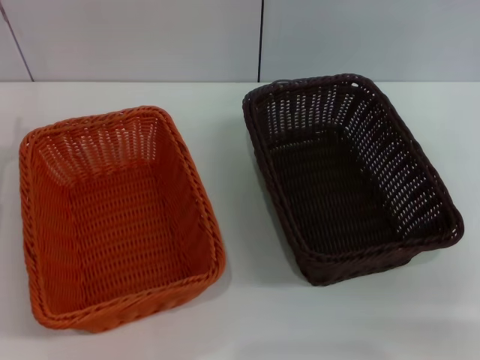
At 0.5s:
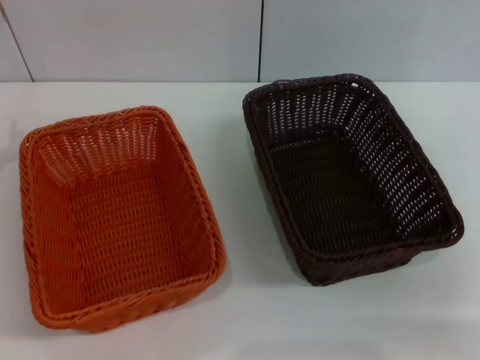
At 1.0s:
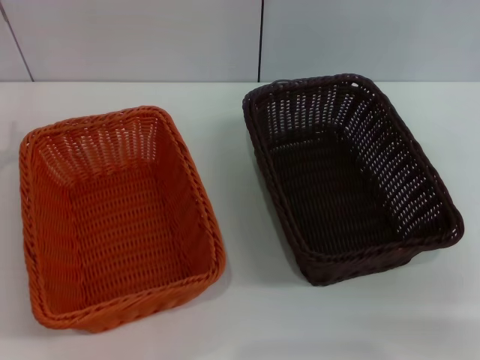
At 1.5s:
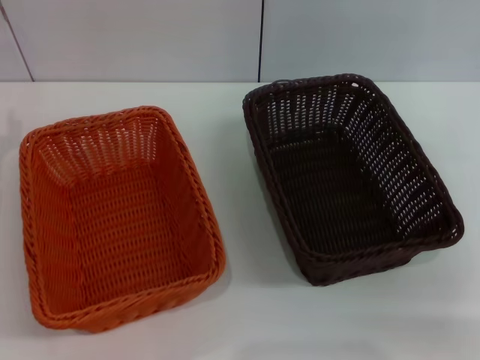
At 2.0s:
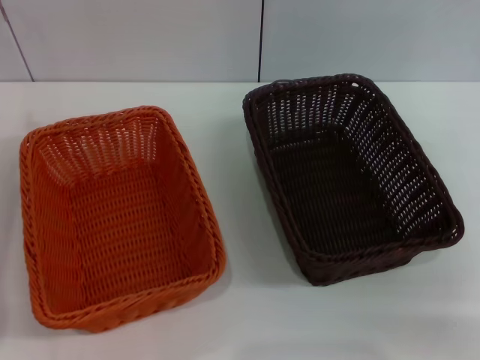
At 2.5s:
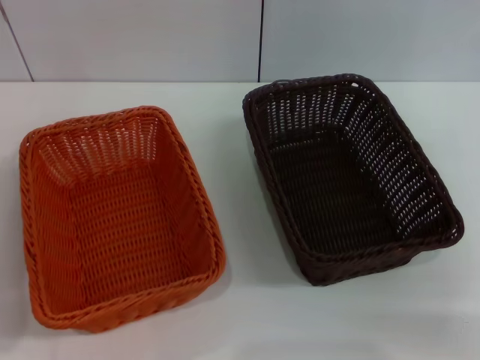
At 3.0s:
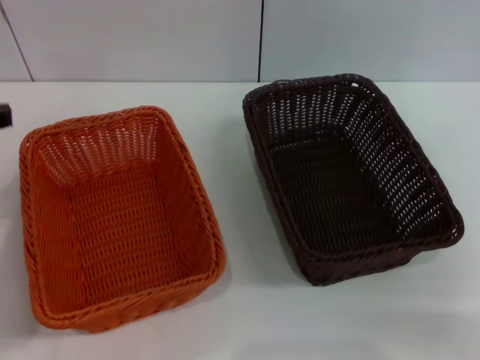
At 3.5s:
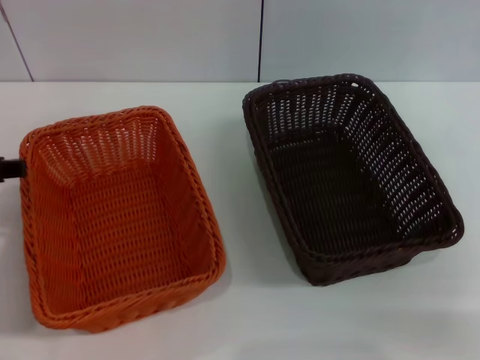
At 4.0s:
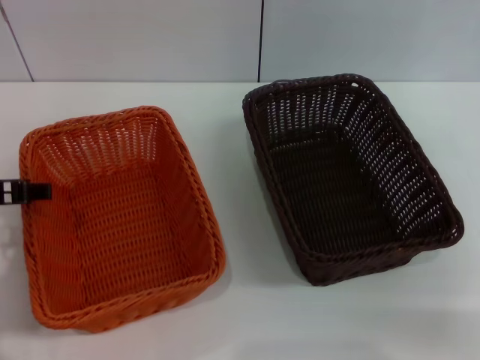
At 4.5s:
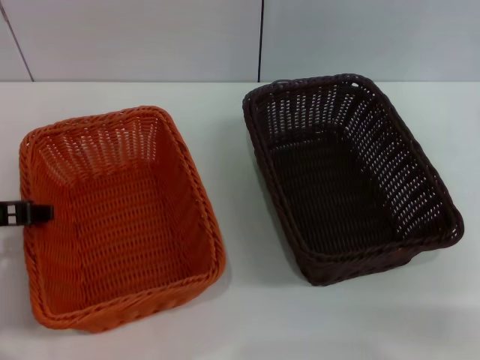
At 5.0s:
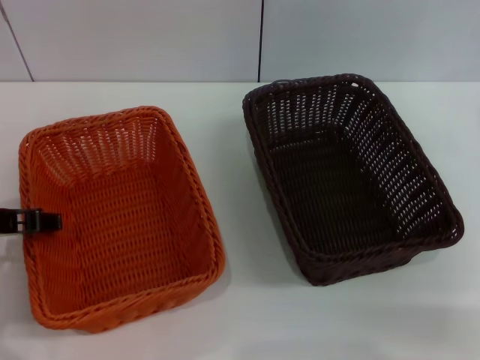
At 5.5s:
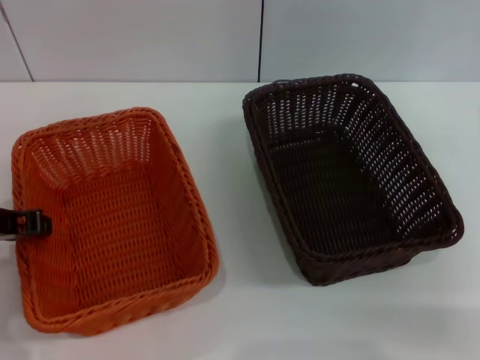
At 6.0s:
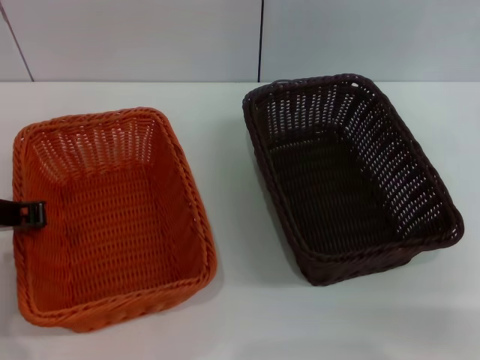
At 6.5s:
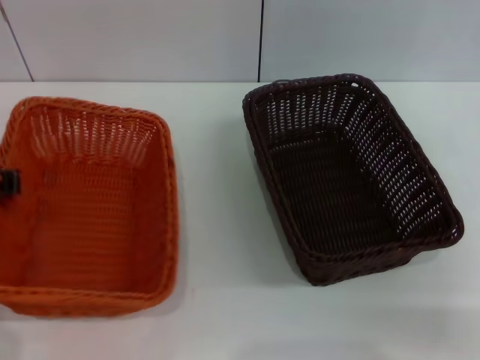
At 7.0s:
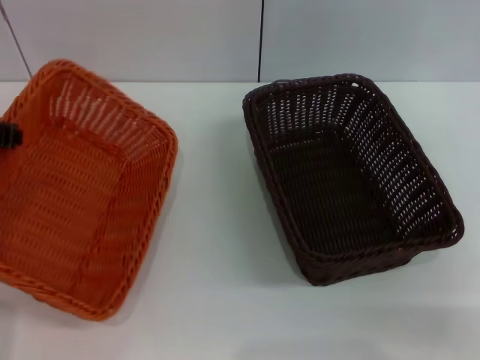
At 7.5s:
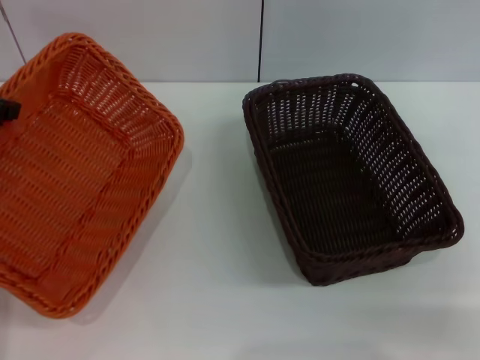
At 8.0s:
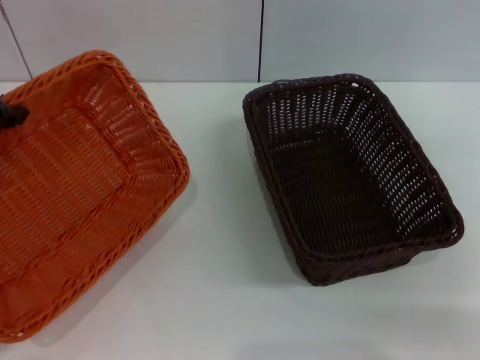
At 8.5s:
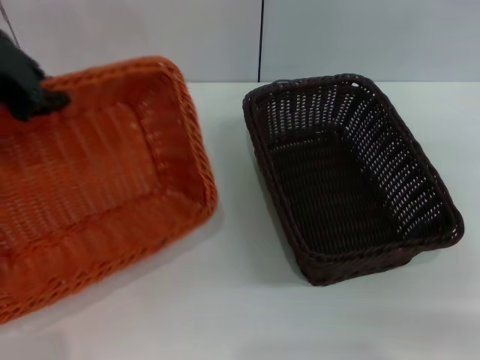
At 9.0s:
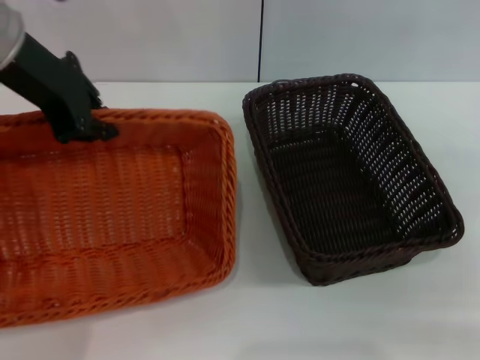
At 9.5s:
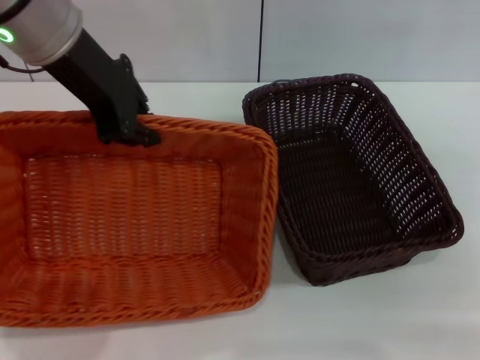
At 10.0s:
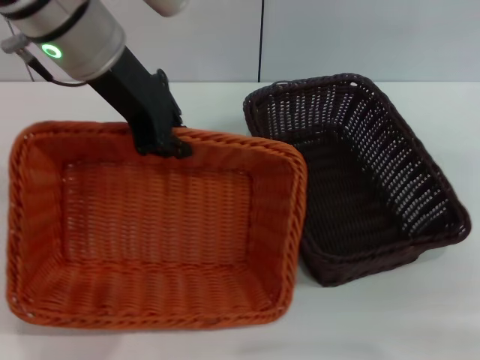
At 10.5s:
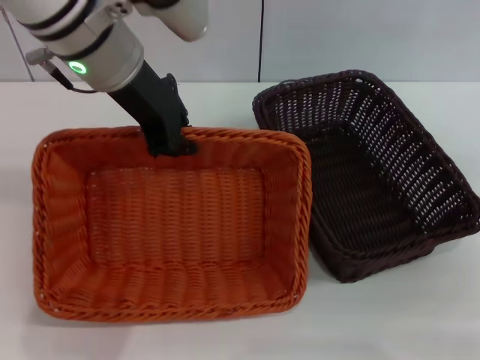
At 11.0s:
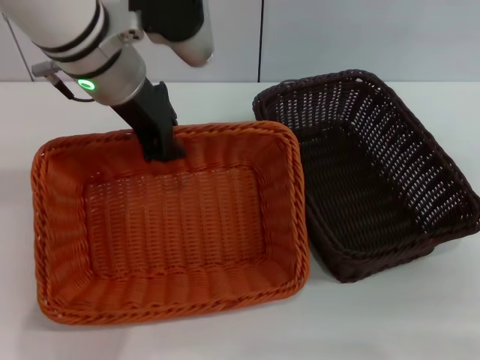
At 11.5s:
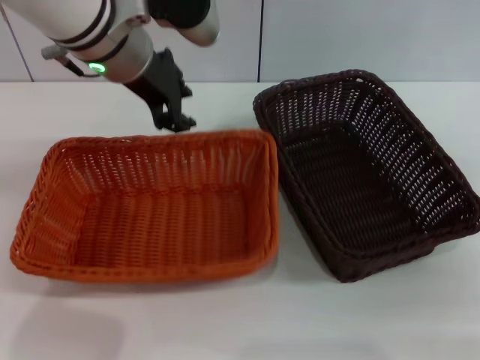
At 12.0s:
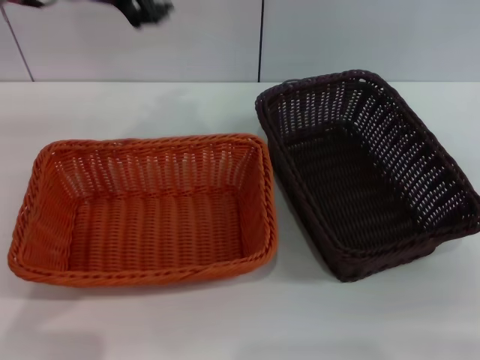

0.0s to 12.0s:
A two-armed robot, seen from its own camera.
Step, 0.0s to 7.0s: Pick up the light basket with the left gripper.
Step, 7.5s to 11.5s: Place the light basket in the center of view with the left gripper.
2.0s to 4.0s: The left gripper shifts some 10 cm to the right and downward, and opens.
4.0s to 6.0s: The left gripper closes.
6.0s to 8.0s: The left gripper shifts some 10 cm upward.
8.0s to 10.0s: The left gripper travels to the right and forward by about 15 cm.
10.0s to 12.0s: The left gripper opens.

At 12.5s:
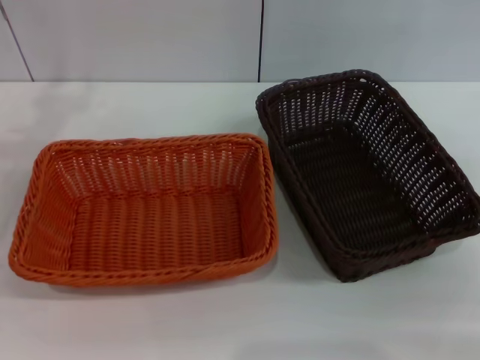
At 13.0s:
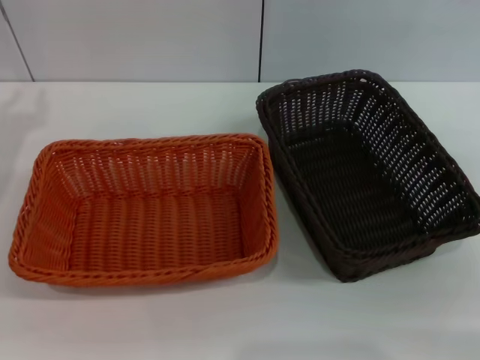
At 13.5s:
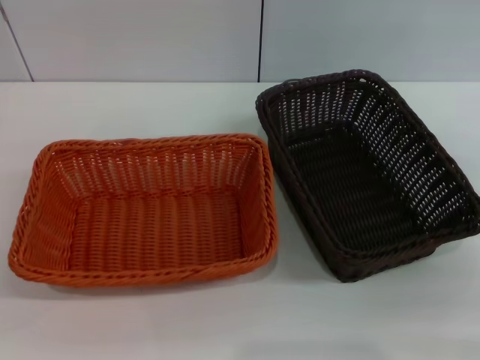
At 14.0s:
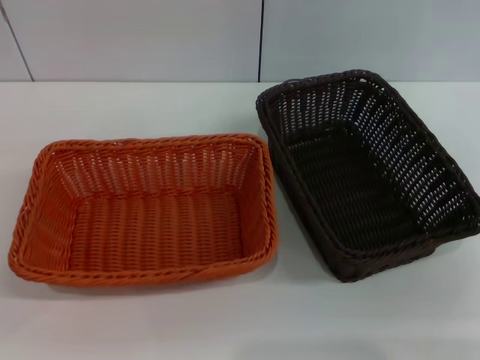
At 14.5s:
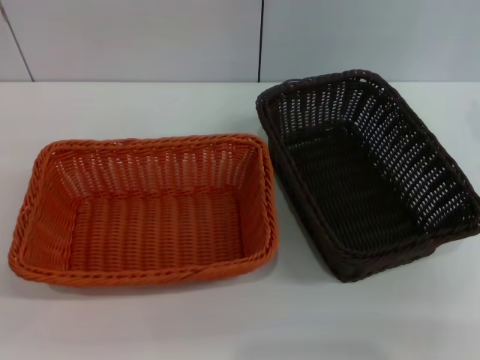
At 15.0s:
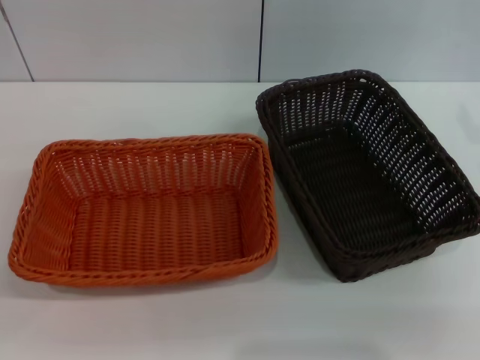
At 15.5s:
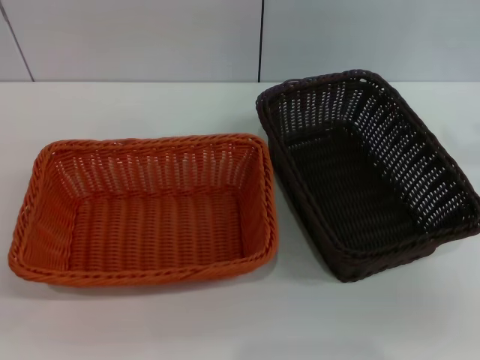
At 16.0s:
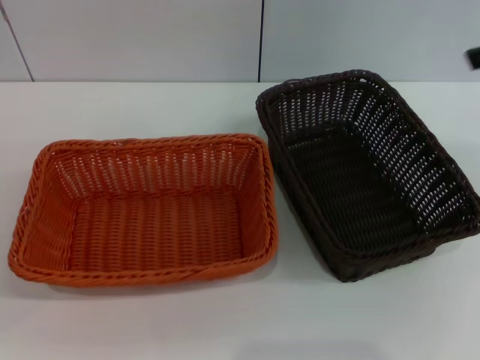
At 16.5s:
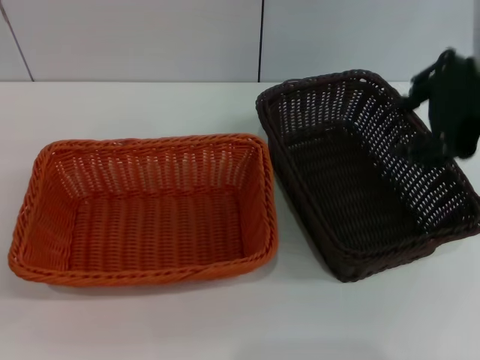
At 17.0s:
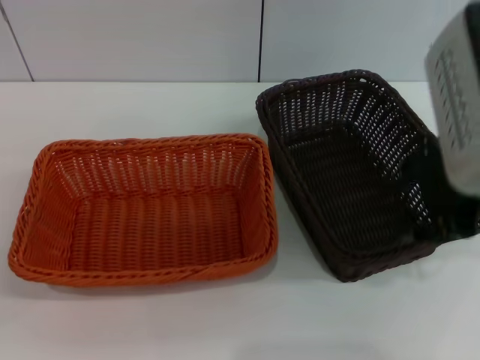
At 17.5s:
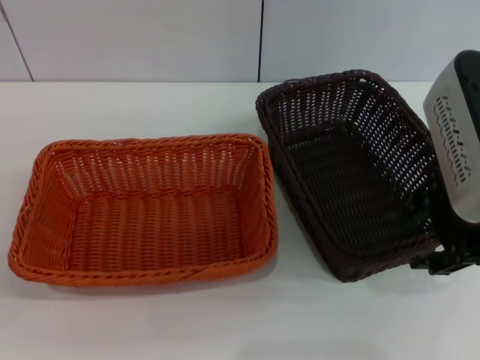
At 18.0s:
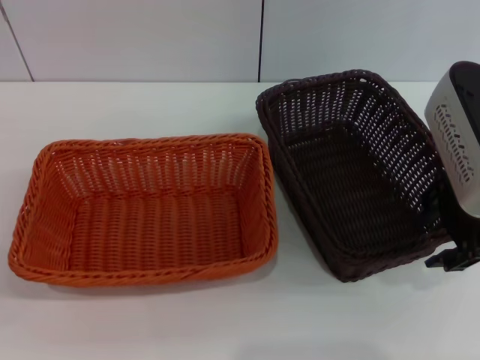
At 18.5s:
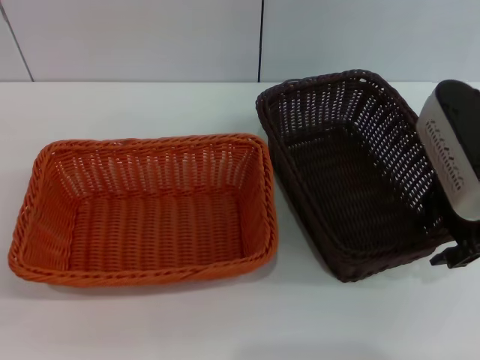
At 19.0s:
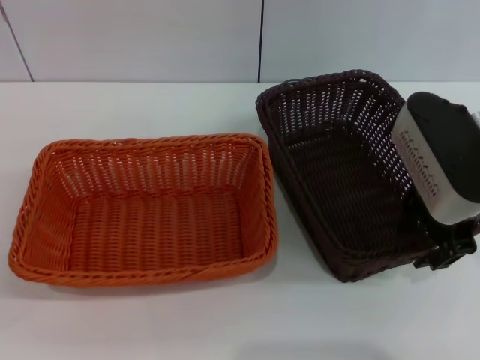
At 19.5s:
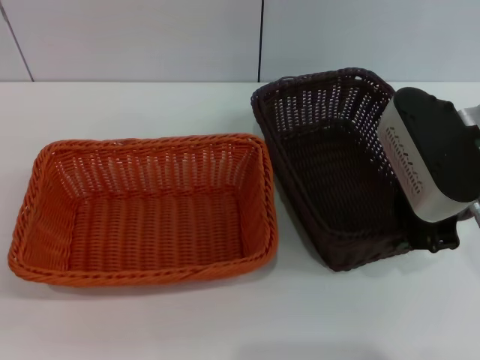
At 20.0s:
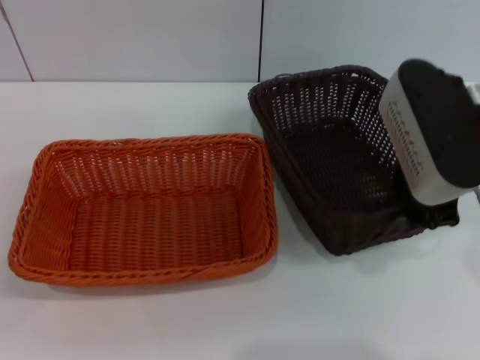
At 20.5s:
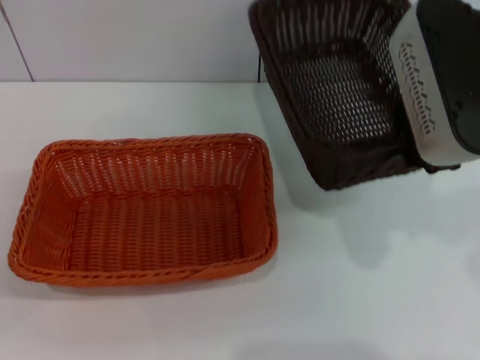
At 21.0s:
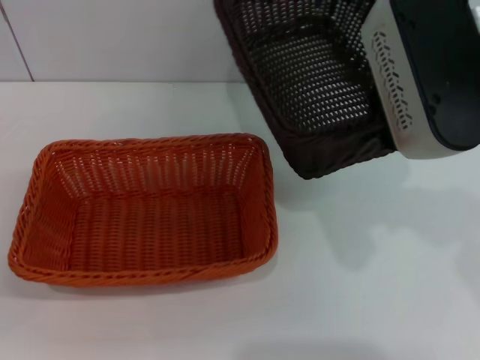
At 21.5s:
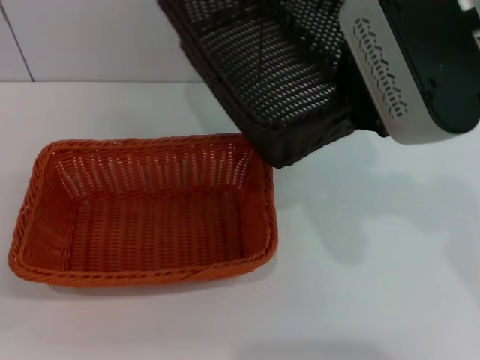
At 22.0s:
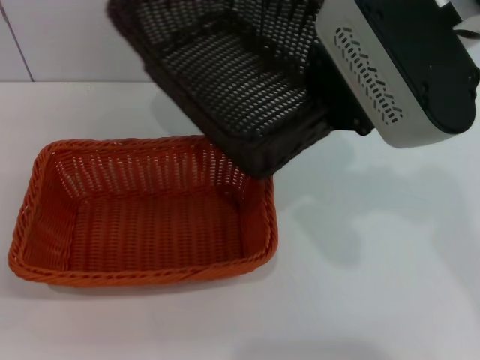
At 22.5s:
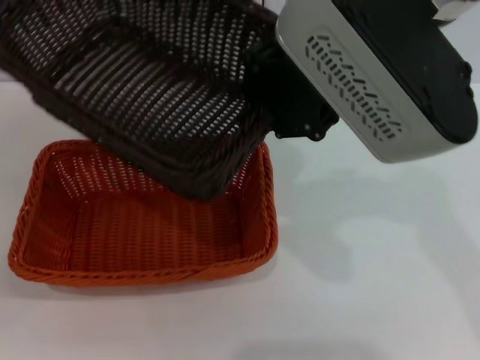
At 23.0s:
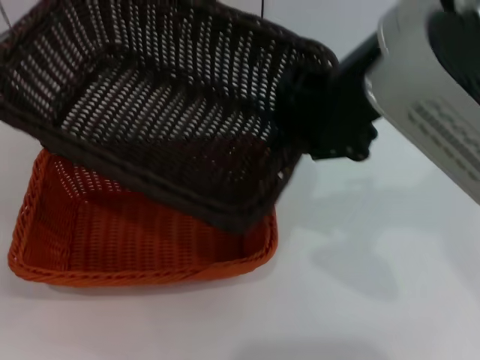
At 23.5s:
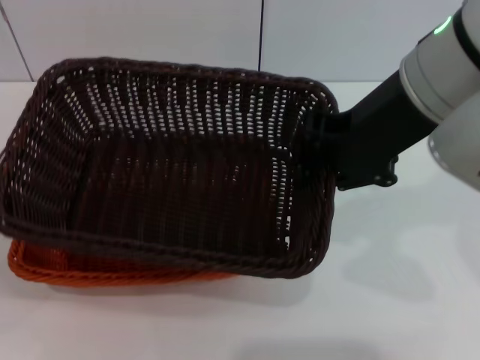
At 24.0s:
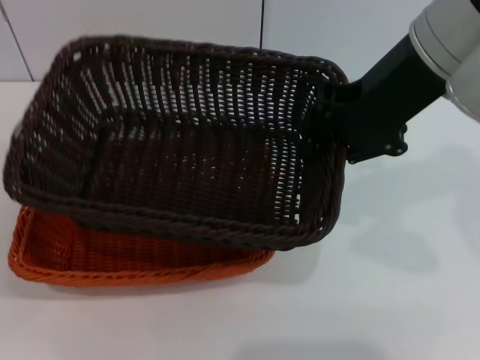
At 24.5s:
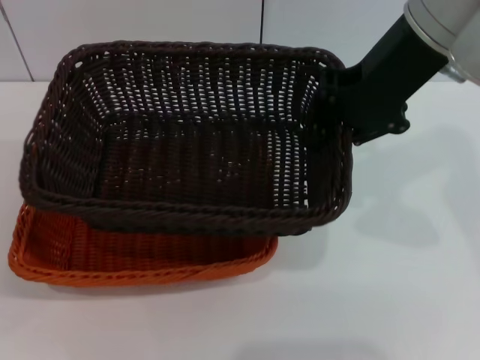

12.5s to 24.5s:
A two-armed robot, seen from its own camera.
Step, 12.5s to 19.5s: Pick up the dark basket with the right gripper.
14.5s to 16.5s: The right gripper is displaced to the left and upward by approximately 15 cm.
16.5s to 18.5s: The right gripper heads downward, covering roughly 10 cm.
18.5s to 20.5s: The right gripper travels upward by about 5 cm, and closes its fingers.
20.5s to 22.5s: The right gripper travels to the left by roughly 10 cm.
22.5s to 24.5s: The right gripper shifts roughly 10 cm to the right and forward.

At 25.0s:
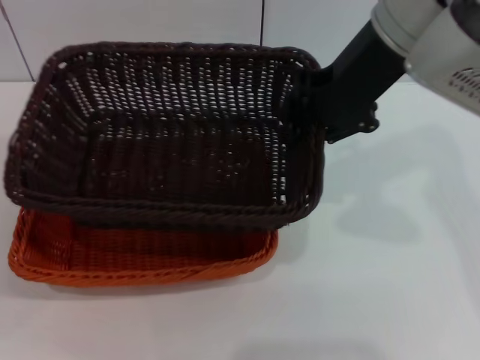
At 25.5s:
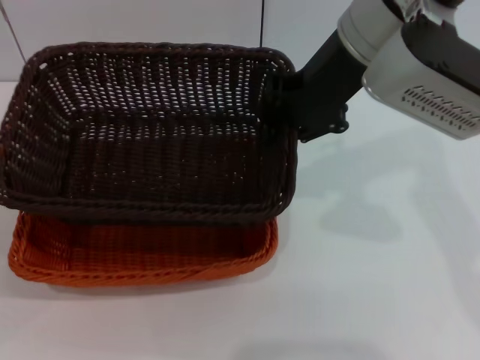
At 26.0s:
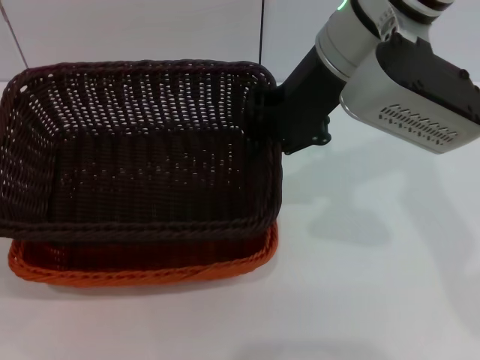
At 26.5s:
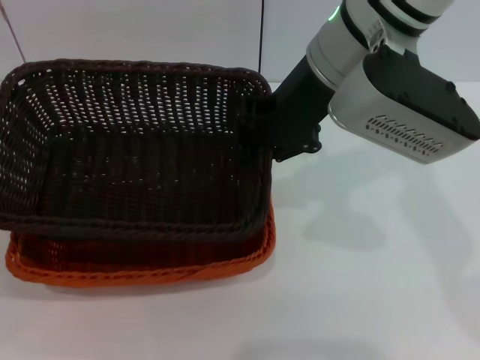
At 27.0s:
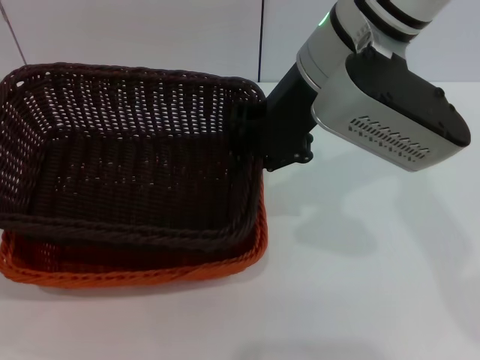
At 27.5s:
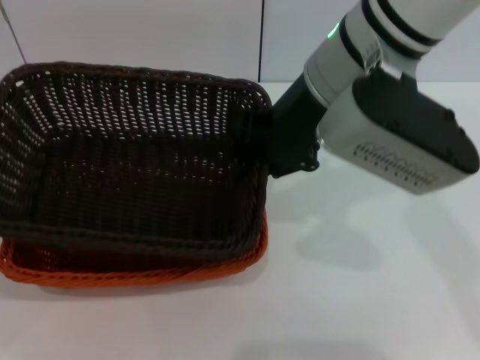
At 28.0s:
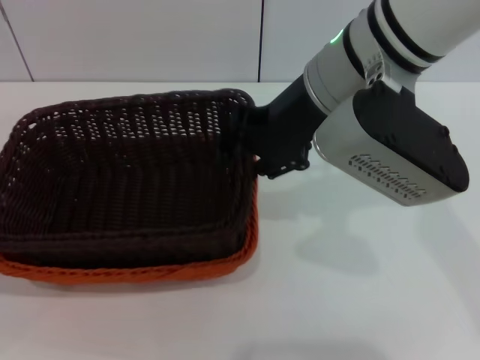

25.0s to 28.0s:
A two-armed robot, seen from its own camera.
25.0s to 26.5s: The right gripper moves some 5 cm.
26.5s to 28.0s: The right gripper opens its fingers.
